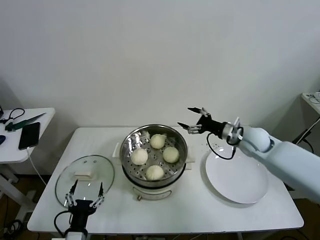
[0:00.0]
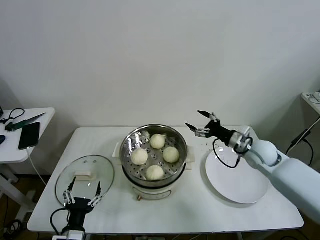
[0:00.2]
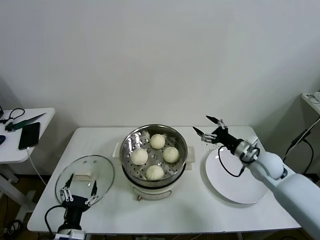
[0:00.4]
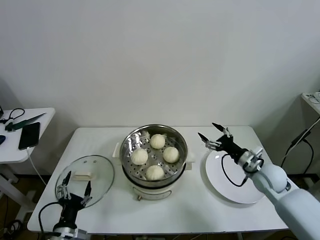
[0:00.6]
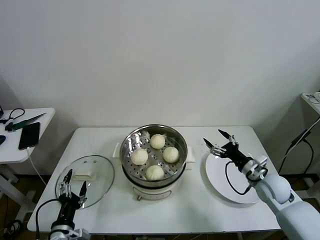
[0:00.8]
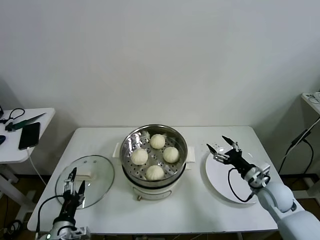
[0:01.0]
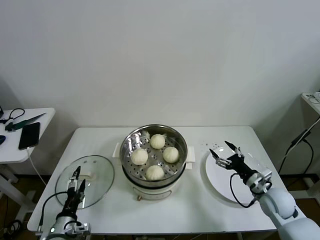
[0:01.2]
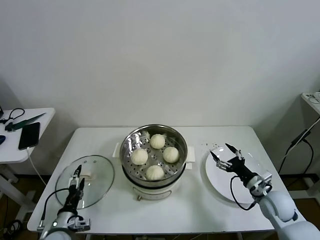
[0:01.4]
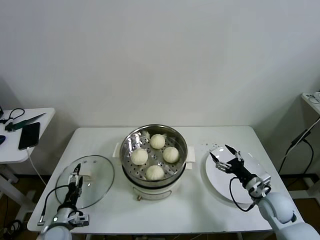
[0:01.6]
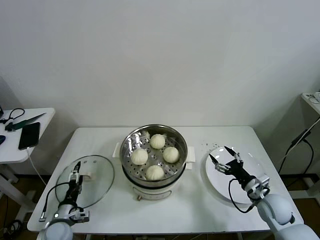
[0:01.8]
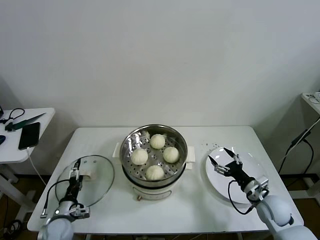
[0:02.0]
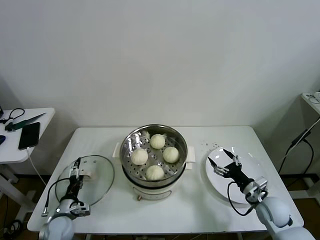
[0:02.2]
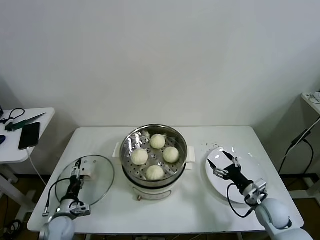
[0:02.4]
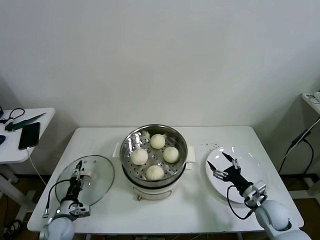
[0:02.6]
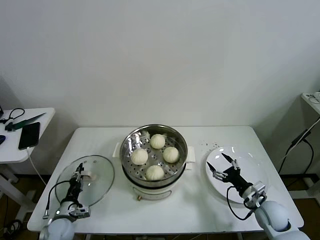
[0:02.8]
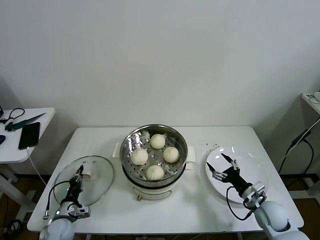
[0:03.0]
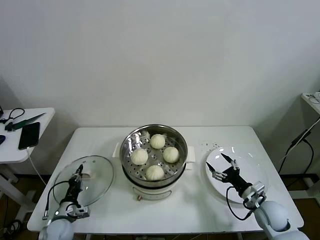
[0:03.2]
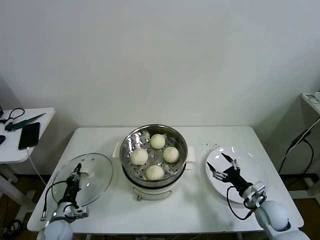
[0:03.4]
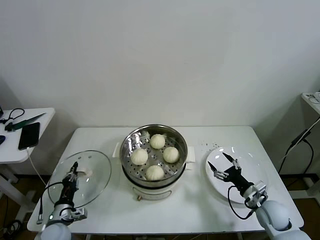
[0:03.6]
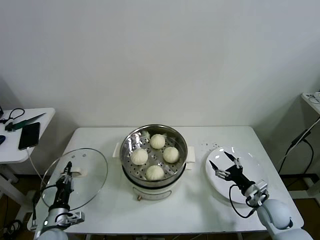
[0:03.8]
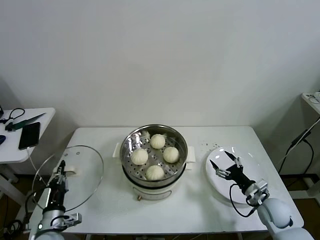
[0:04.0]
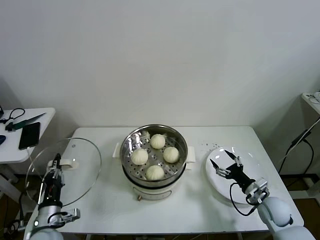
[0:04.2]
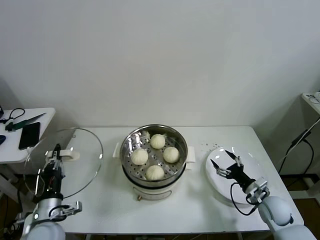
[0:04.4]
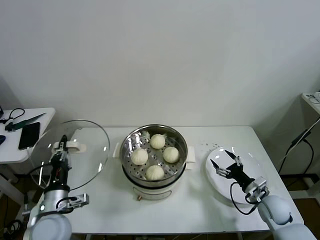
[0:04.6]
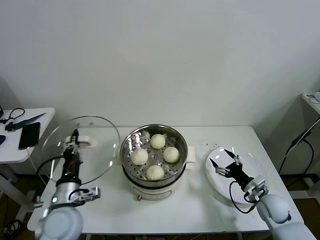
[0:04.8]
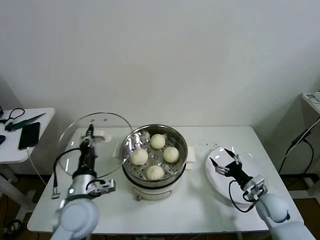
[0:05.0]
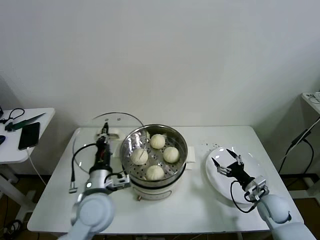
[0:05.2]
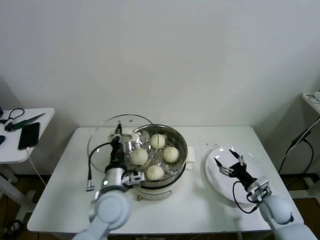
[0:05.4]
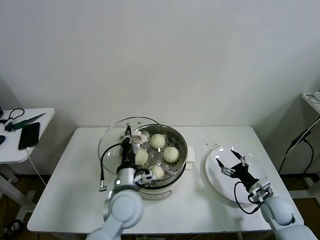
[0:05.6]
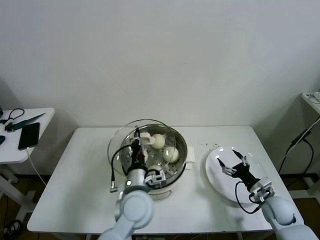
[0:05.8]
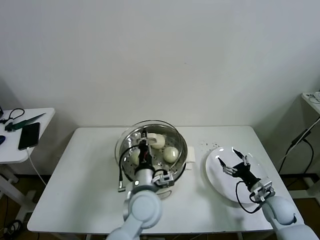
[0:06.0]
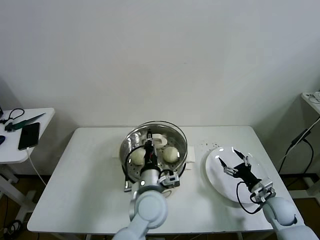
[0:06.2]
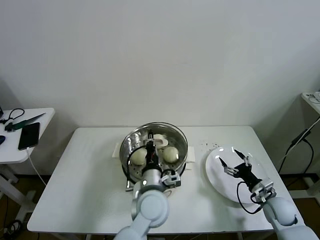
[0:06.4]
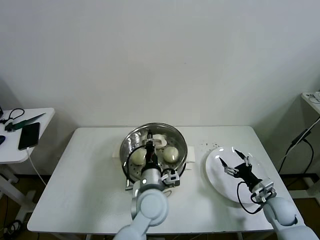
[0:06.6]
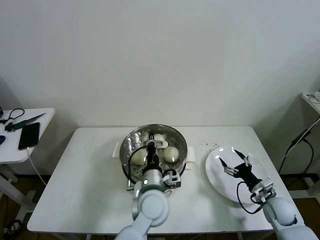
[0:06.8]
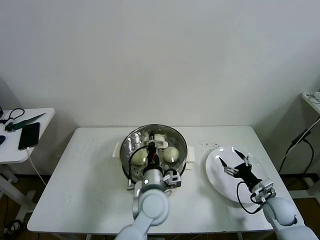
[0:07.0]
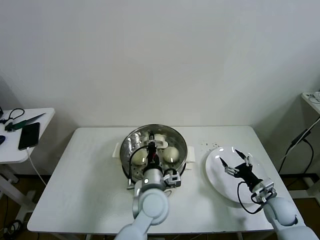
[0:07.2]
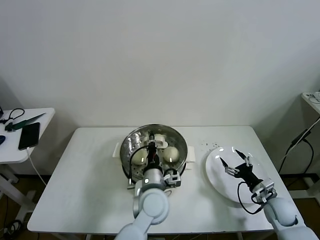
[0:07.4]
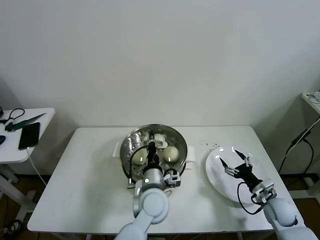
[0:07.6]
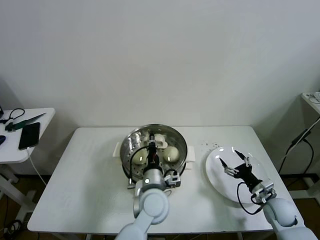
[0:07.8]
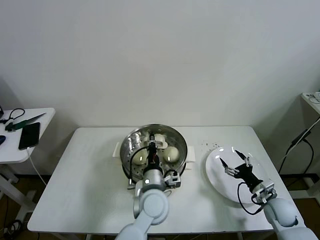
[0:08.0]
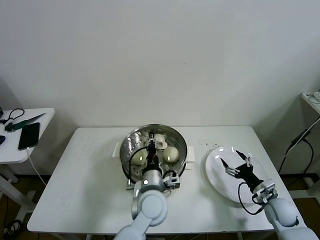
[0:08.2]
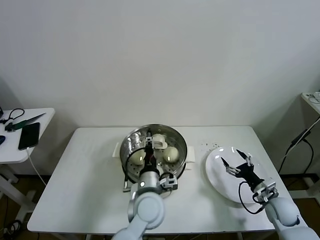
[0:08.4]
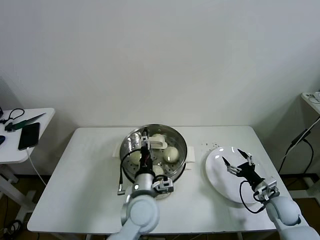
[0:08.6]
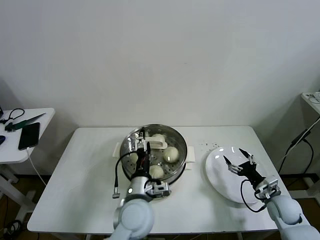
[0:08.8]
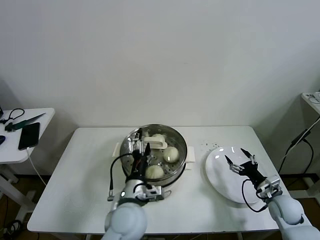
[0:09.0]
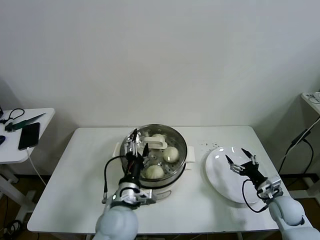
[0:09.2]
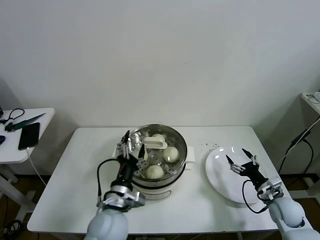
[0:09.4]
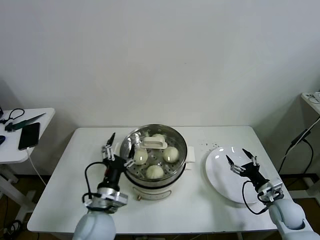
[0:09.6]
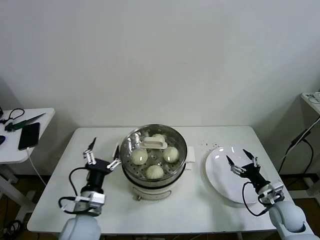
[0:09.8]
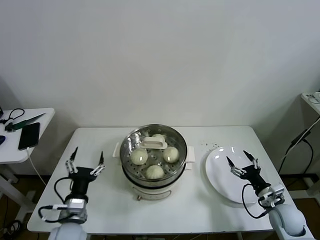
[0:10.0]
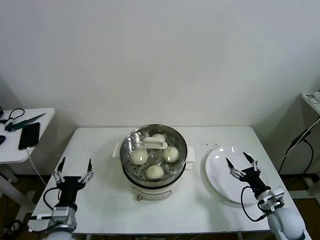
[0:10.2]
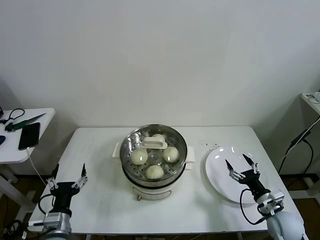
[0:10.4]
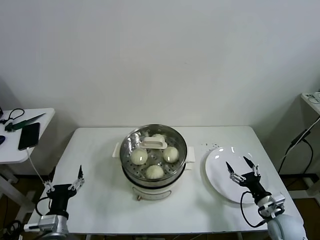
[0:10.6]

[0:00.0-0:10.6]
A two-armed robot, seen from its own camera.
Task of the whole recording: take steamed baozi put them in steamer then cover it.
Step, 0:00.0 to 0:02.8: Grasp the pot lid with left gripper.
Step, 0:03.2 to 0:08.2: Place the pot lid on the steamer with left gripper.
0:00.0 to 0:01.6: The right gripper heads backward and downward, covering roughly 20 cm. Meanwhile the left gripper travels to the left, forward and downward by roughly 15 cm.
0:01.6 to 0:03.0: The left gripper ends up about 5 cm from where it was, and closes up.
0:03.0 to 0:04.6: The left gripper goes approximately 20 cm upward.
0:04.6 to 0:06.0: The left gripper is displaced to the right by roughly 25 cm.
0:06.0 to 0:07.6: There are only small adjustments of the grippers.
0:07.6 to 0:09.0: The left gripper moves to the left, about 5 cm, and opens.
0:09.0 to 0:10.6: The right gripper goes about 5 cm backward. The left gripper moves to the left, about 20 cm.

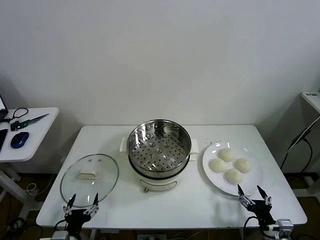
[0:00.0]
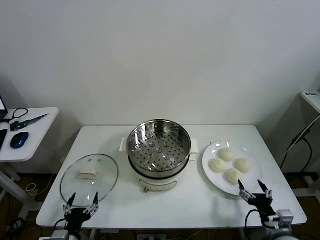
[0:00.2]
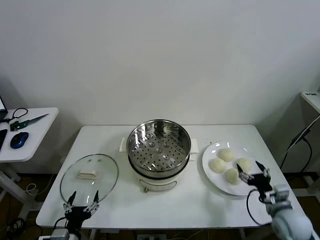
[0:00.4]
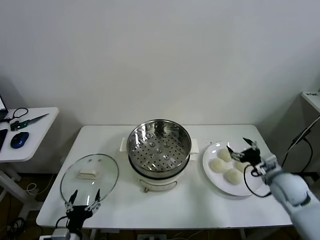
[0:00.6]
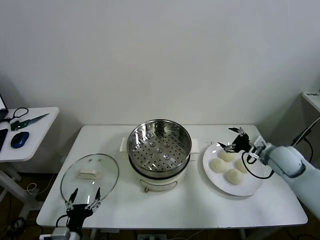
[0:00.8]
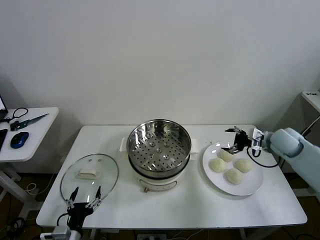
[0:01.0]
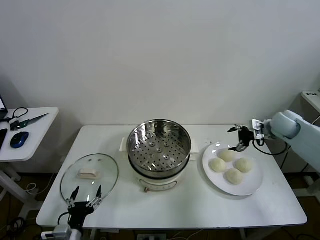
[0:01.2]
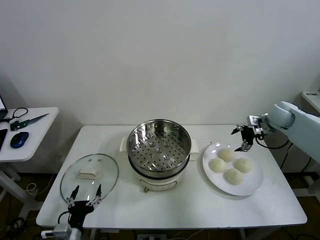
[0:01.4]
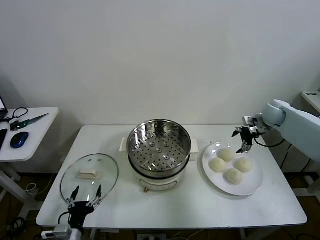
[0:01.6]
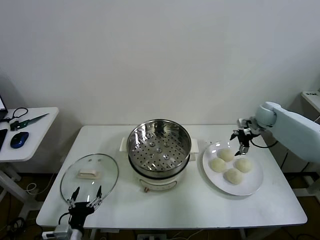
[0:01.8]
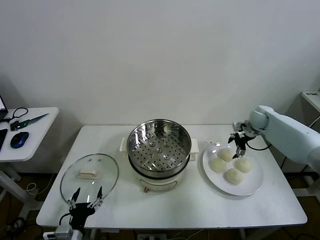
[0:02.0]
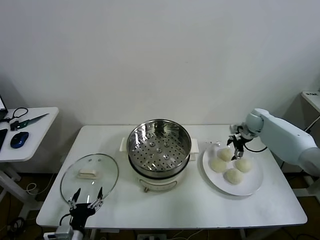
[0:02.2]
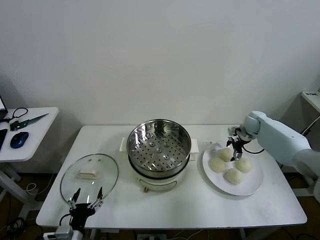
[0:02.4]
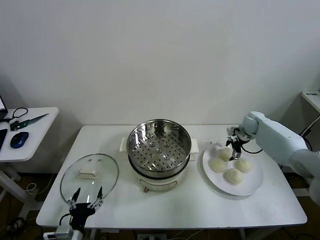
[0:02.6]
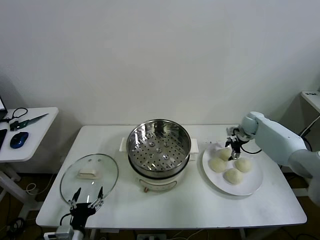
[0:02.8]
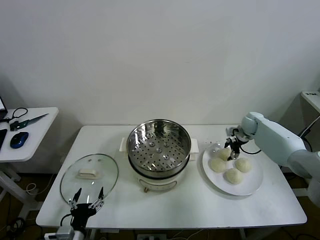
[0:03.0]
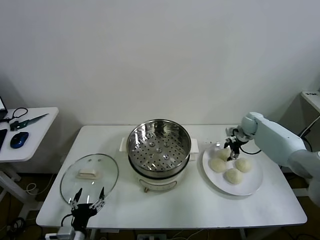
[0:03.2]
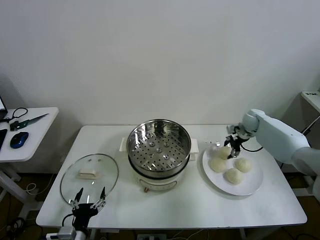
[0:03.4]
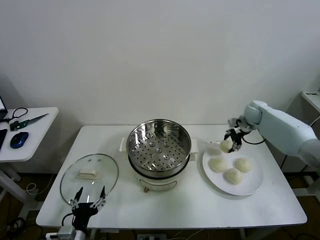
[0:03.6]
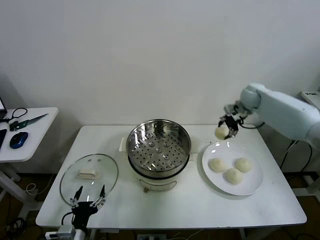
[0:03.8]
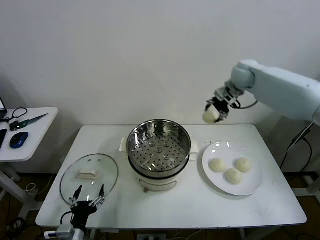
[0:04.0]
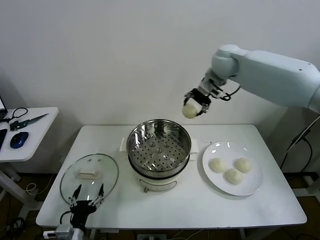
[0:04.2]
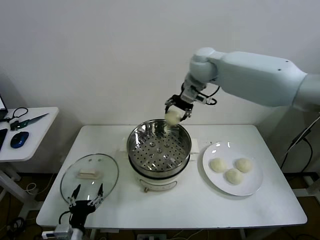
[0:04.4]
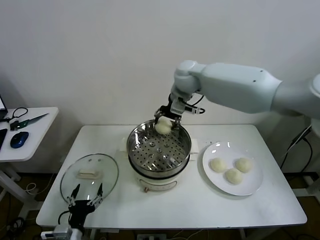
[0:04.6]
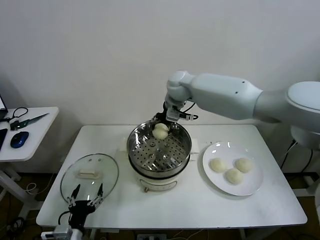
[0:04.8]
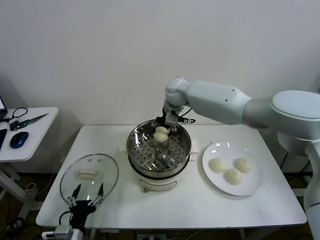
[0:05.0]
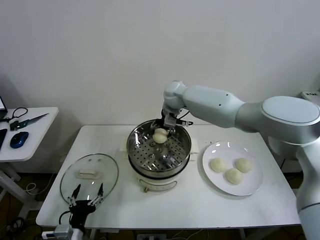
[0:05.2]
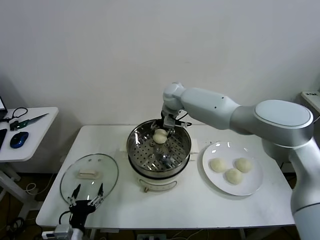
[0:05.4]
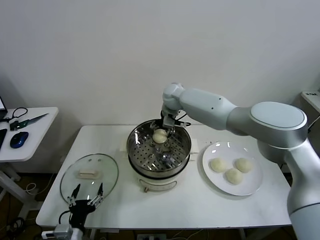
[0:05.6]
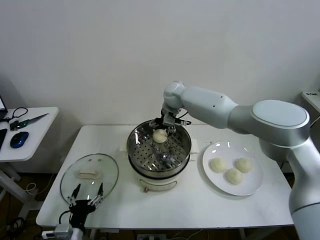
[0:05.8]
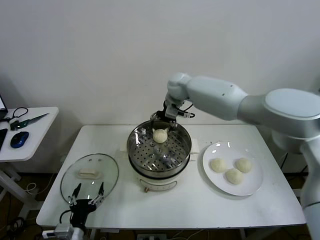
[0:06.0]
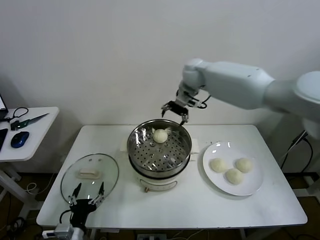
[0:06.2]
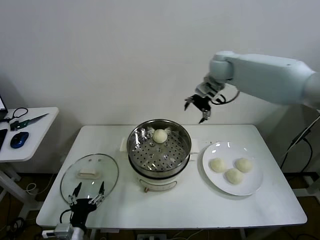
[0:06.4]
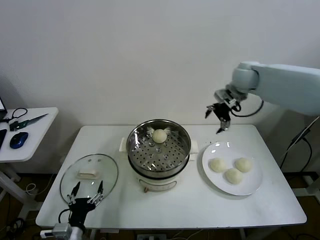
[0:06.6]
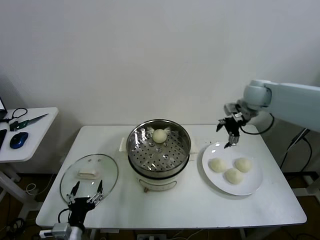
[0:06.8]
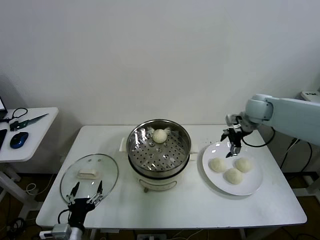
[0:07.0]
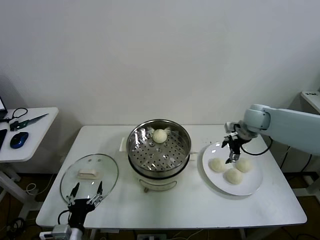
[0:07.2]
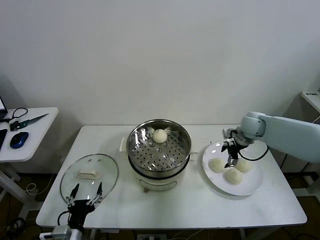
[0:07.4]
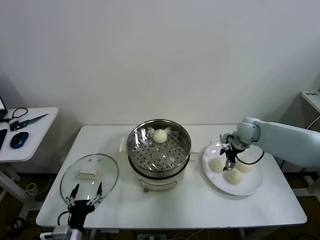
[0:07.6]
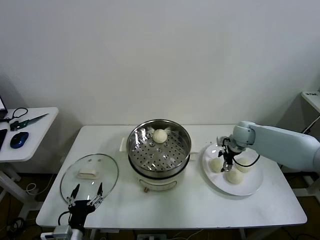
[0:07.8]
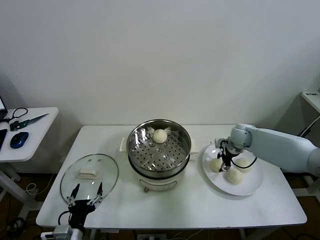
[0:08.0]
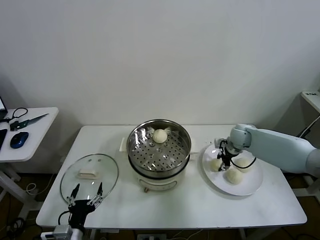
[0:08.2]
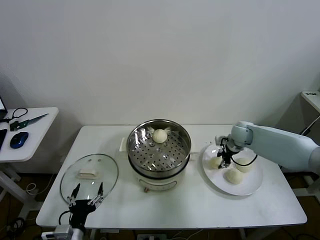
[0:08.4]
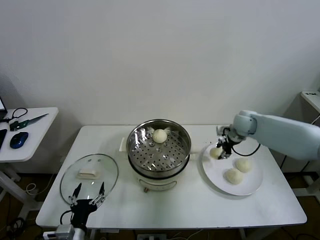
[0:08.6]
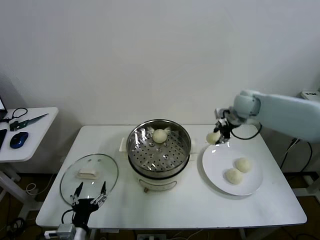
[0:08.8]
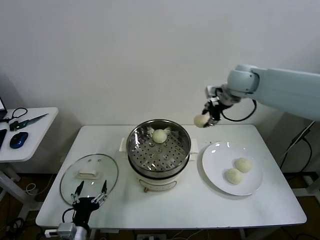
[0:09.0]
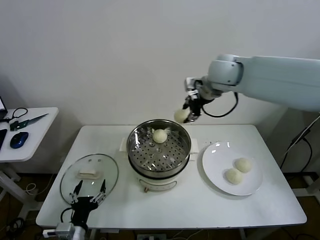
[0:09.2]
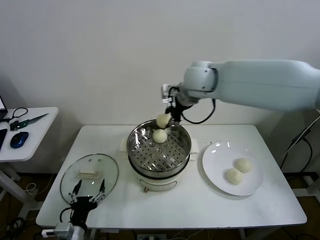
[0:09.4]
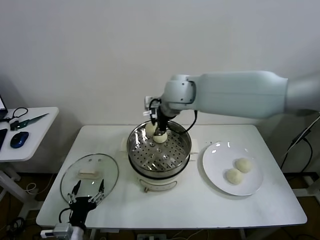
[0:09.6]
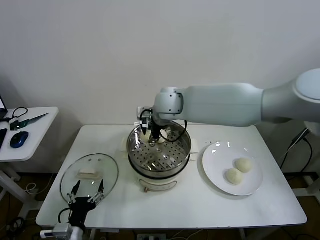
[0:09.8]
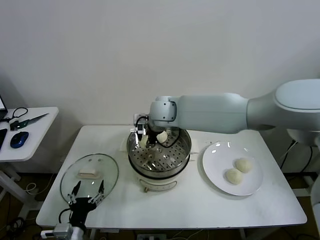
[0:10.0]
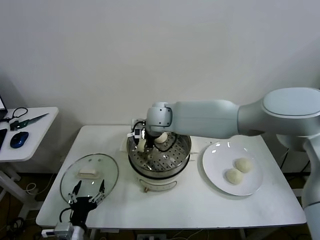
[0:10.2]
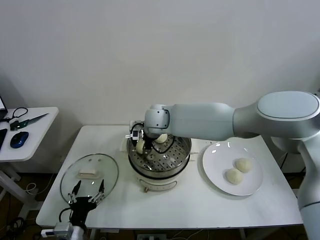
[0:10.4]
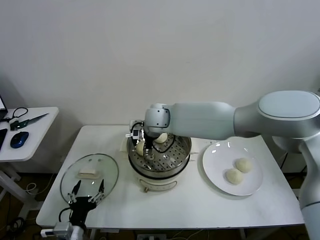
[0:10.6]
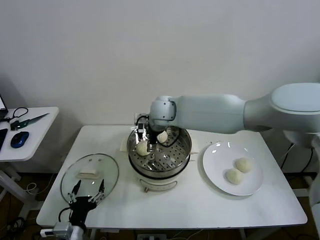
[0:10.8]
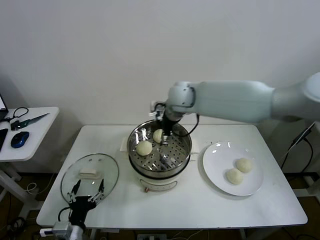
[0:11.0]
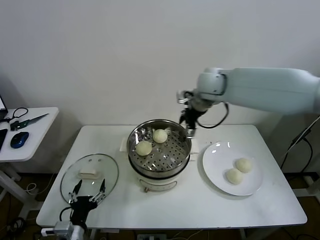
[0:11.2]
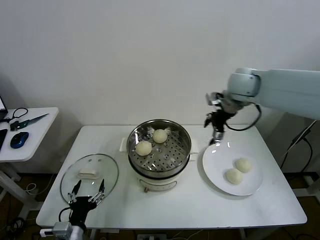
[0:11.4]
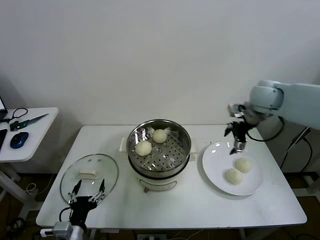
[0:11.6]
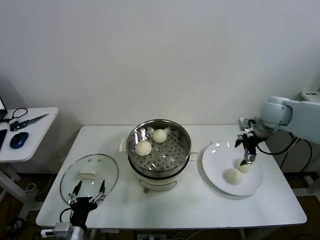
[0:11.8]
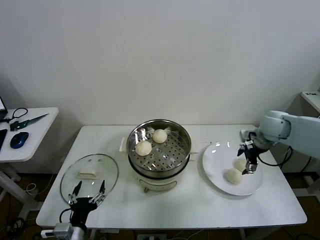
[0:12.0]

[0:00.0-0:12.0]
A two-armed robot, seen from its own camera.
Task of the whole recording: take steamed baozi put them in steamer then cover it.
Step, 0:00.0 to 0:03.0: Grasp the baozi in the plate with right gripper.
Step, 0:03.2 to 0:05.8: Place the baozi on the steamer with right gripper.
Step, 0:06.0 to 0:08.0: Grasp the baozi in the plate with right gripper.
Step, 0:08.2 to 0:10.8: Place the baozi on the steamer with right gripper.
0:01.6 to 0:03.0: The right gripper heads downward, covering roughly 10 cm, and closes.
0:03.0 to 0:04.4: The right gripper heads to the left and upward, covering roughly 40 cm.
0:04.4 to 0:06.0: The right gripper moves downward, about 5 cm, and opens.
0:06.0 to 0:07.6: The right gripper shifts roughly 30 cm to the right and downward.
0:07.6 to 0:09.0: The right gripper goes about 25 cm upward and to the left, and closes its fingers.
0:09.0 to 0:10.4: The right gripper is displaced to the left and downward by some 30 cm.
0:10.4 to 0:12.0: The right gripper travels to the right by roughly 40 cm, and opens up.
